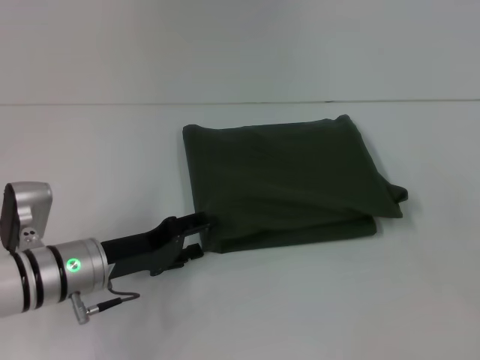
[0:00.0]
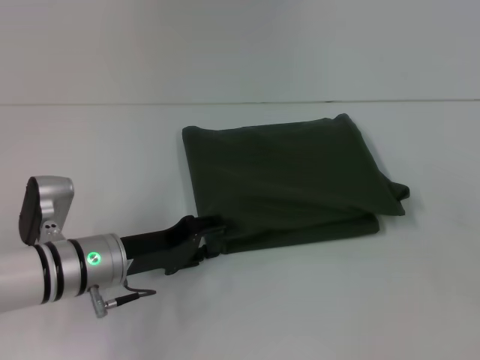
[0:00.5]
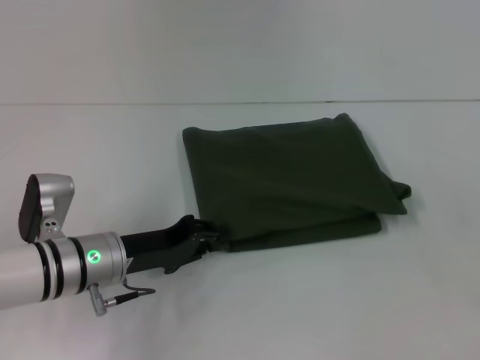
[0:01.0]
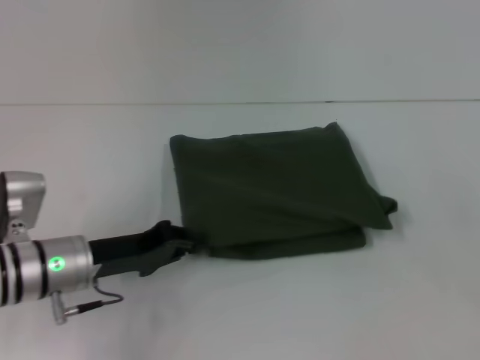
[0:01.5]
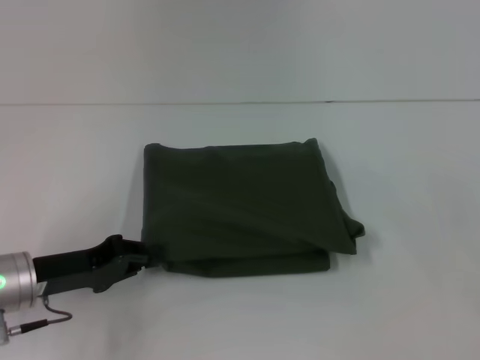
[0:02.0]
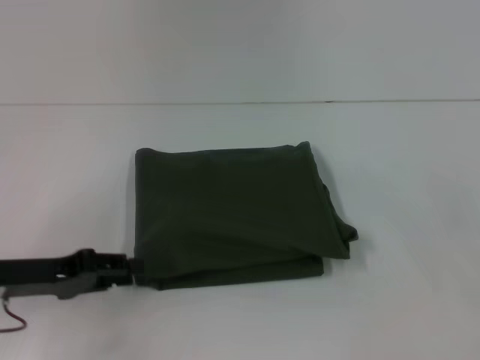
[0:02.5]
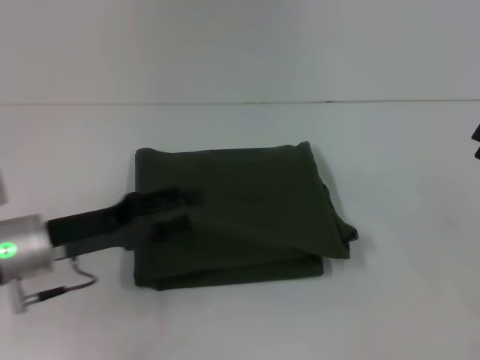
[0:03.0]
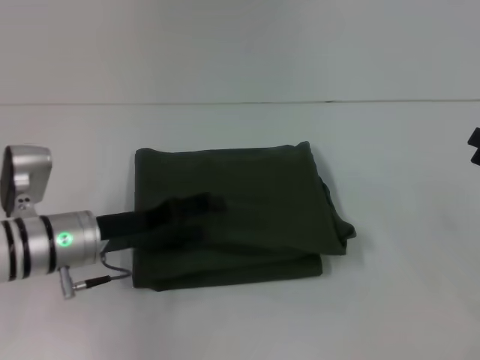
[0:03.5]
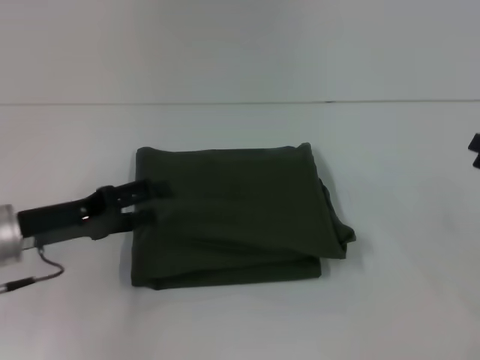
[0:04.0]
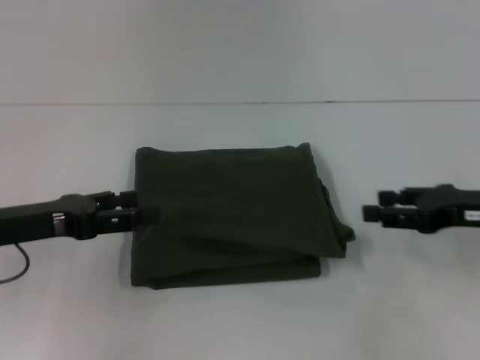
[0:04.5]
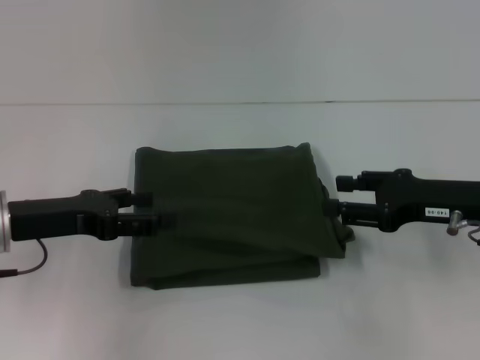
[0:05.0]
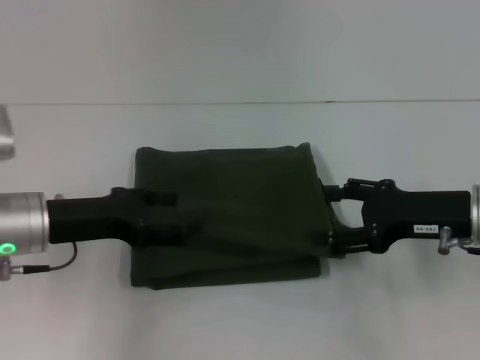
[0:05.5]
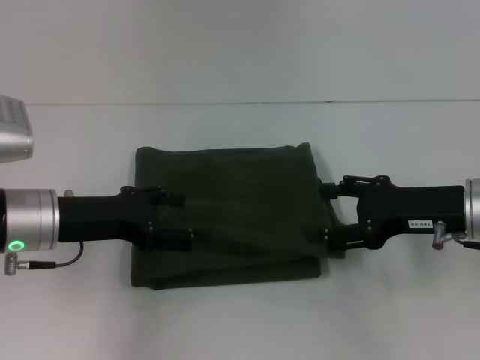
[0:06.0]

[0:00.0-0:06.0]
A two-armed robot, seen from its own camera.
0:00.0 to 0:02.0: The left gripper is displaced to the left by roughly 5 cm, and closes.
0:02.0 to 0:04.0: The left gripper travels to the right and back again, about 5 cm each way, and opens its fingers.
0:04.0 to 0:06.0: The right gripper shifts approximately 15 cm to the left.

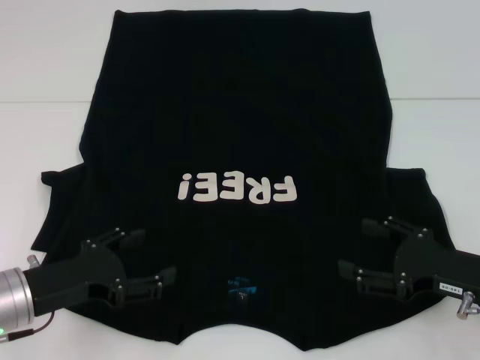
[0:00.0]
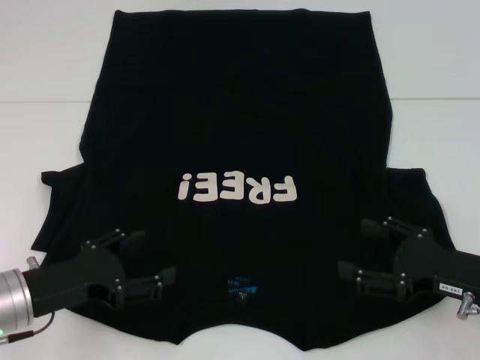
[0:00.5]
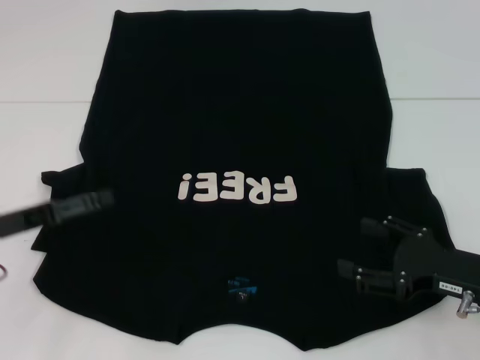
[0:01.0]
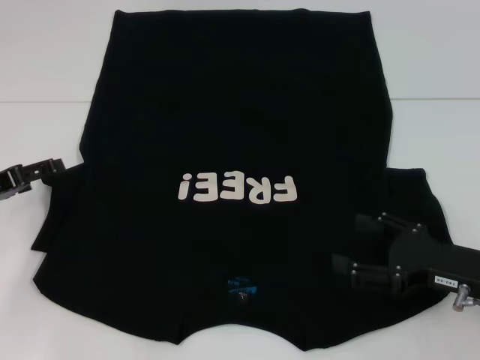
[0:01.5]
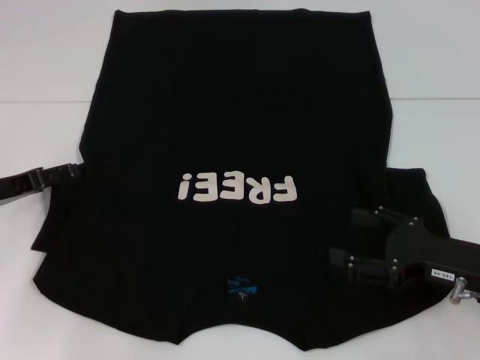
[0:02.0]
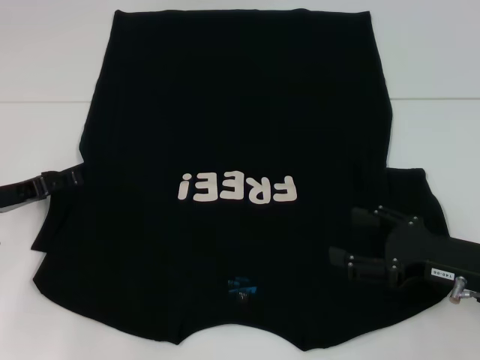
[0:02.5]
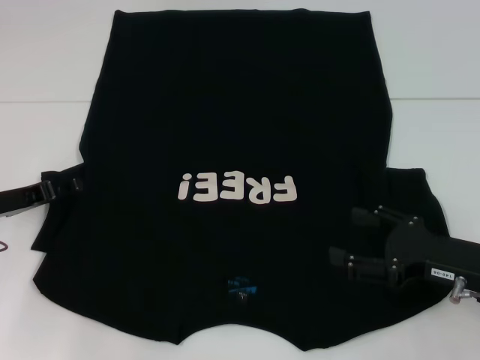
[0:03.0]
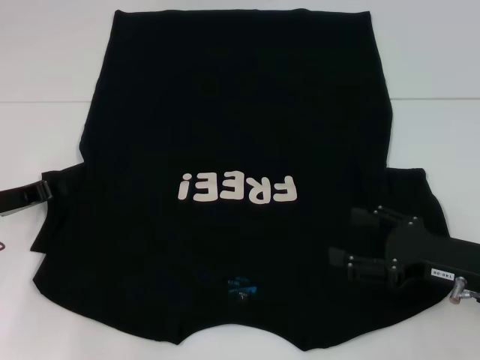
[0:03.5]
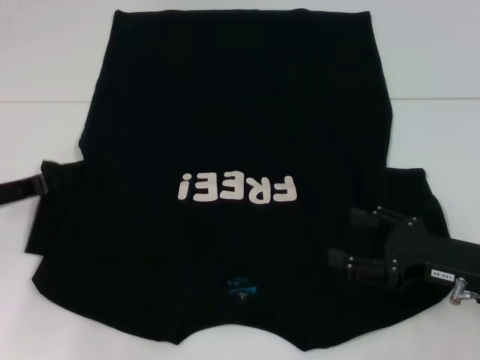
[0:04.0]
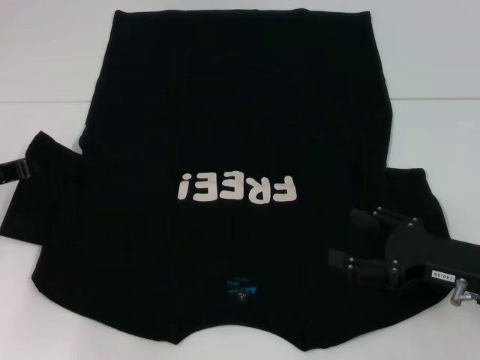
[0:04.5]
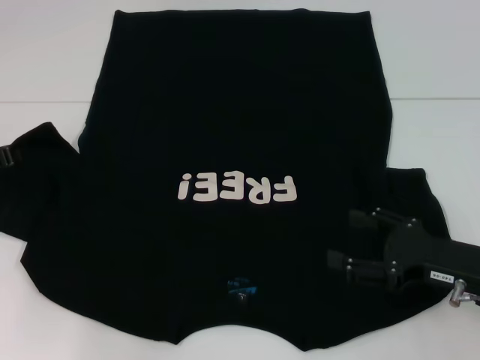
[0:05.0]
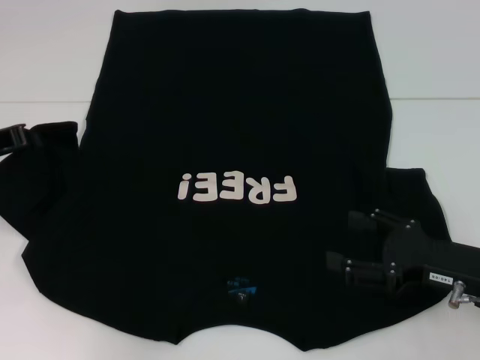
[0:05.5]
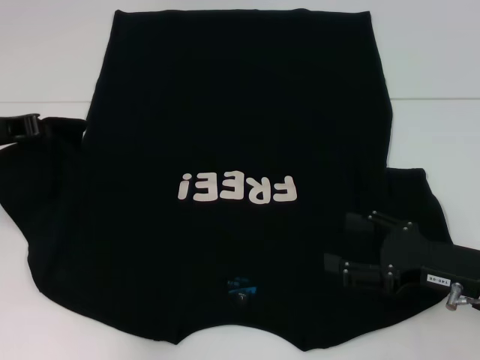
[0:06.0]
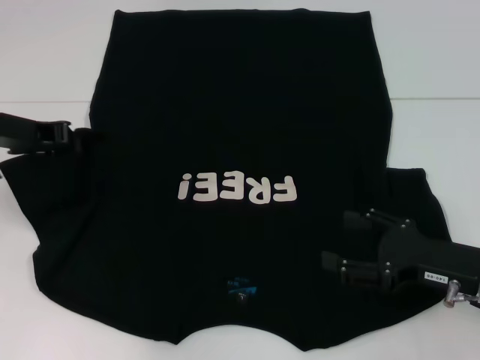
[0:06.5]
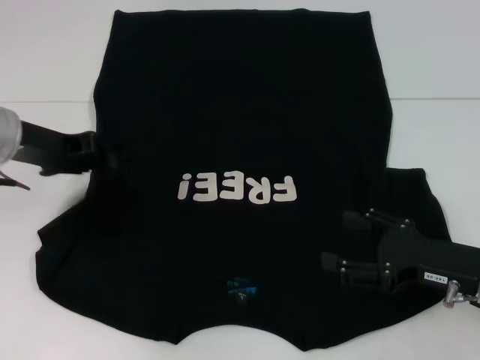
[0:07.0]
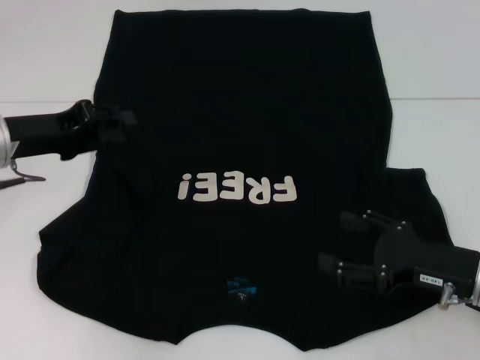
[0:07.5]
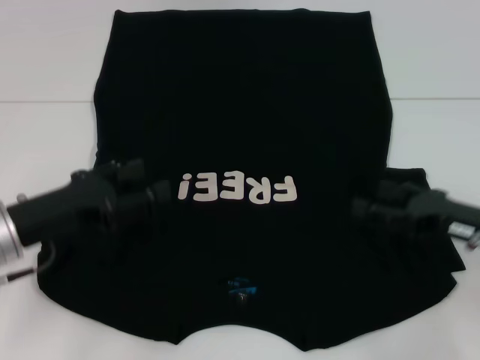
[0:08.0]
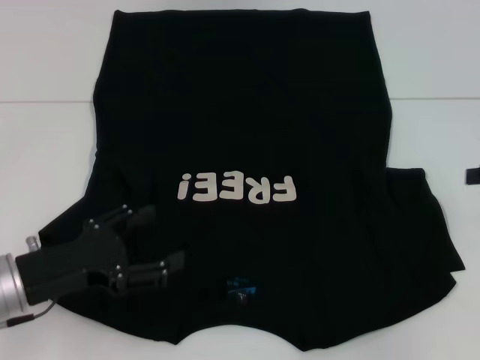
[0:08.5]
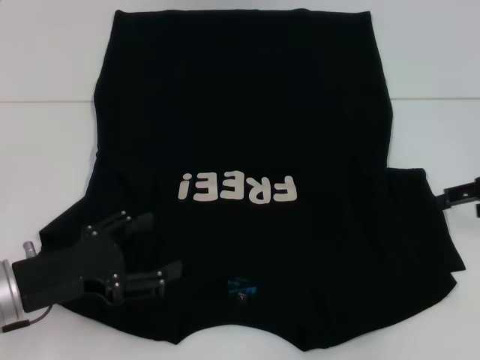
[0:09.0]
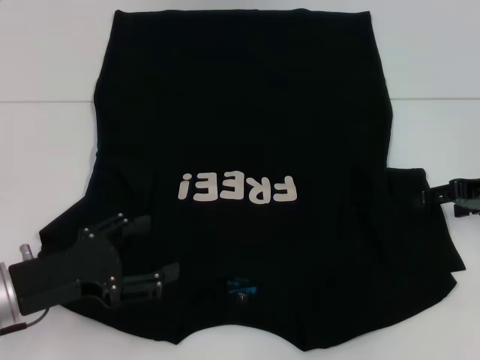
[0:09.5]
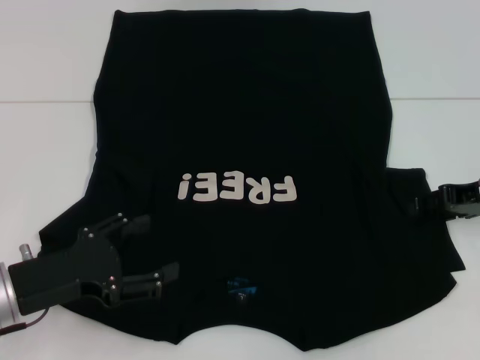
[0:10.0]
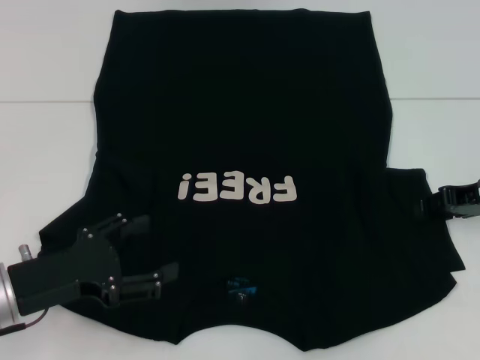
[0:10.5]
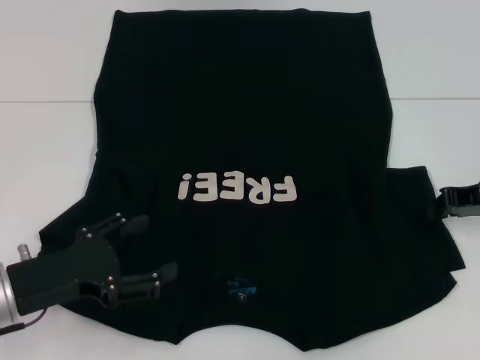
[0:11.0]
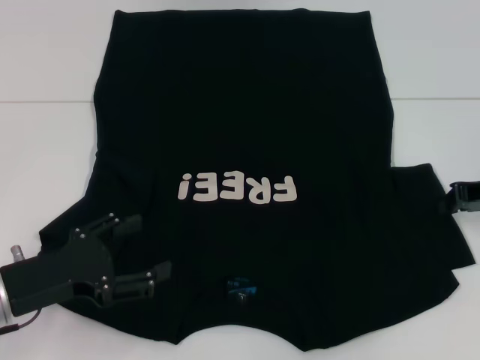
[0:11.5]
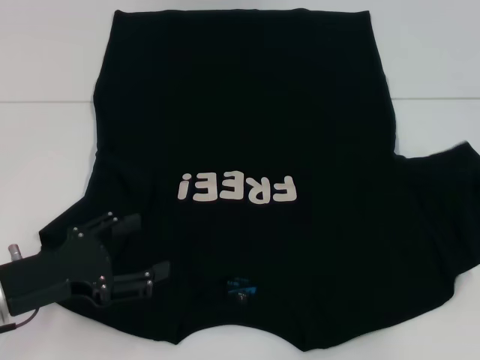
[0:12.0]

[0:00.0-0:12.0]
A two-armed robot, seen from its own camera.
Step, 0:00.0 to 0:07.5: Fold the bottom left sleeve with your left hand.
0:00.0 to 0:02.0: The left gripper moves forward and to the left, about 10 cm.
0:02.0 to 0:04.0: The left gripper closes up.
0:04.0 to 0:06.0: The left gripper shifts approximately 10 cm upward.
0:06.0 to 0:08.0: The left gripper moves backward, downward and to the right, about 10 cm, and opens.
0:08.0 to 0:10.0: The right gripper is displaced forward by roughly 10 cm; the left gripper ends up some 5 cm from where it was, and opens up.
0:10.0 to 0:12.0: The right gripper travels to the right by about 5 cm, and closes its fingers.

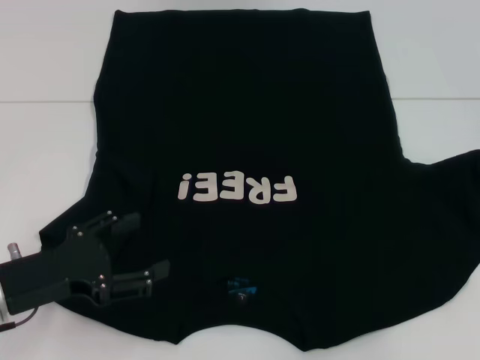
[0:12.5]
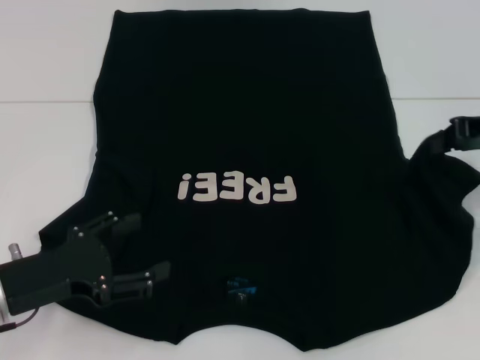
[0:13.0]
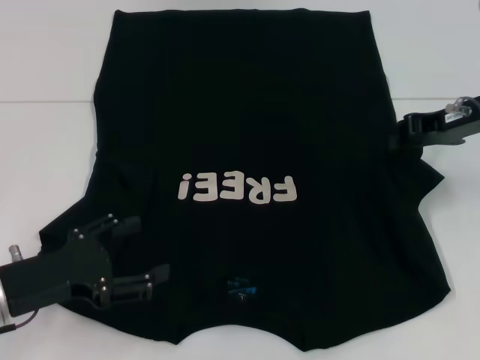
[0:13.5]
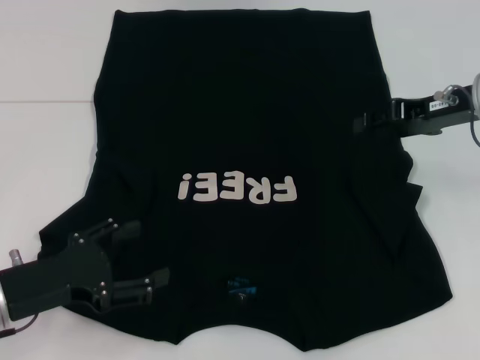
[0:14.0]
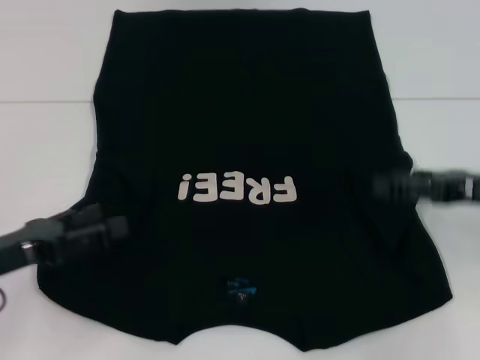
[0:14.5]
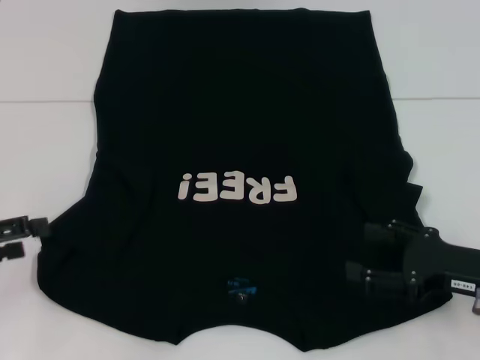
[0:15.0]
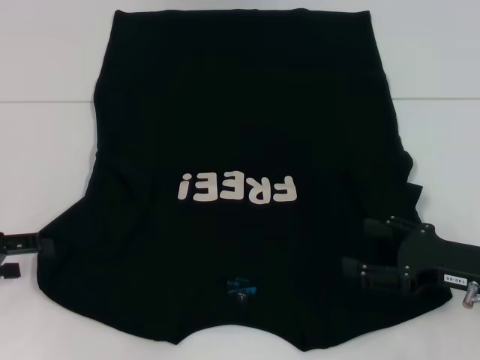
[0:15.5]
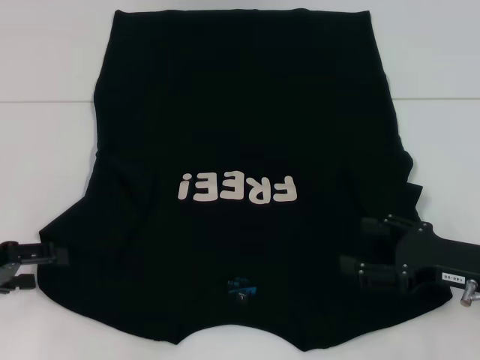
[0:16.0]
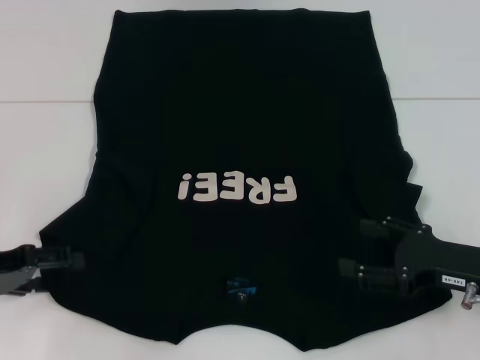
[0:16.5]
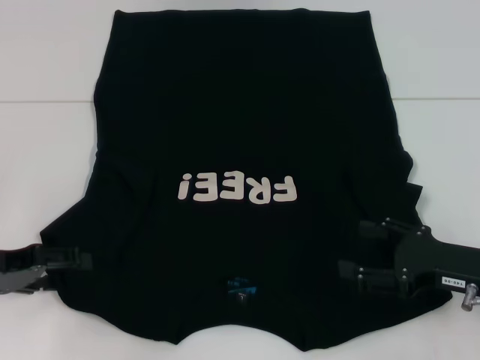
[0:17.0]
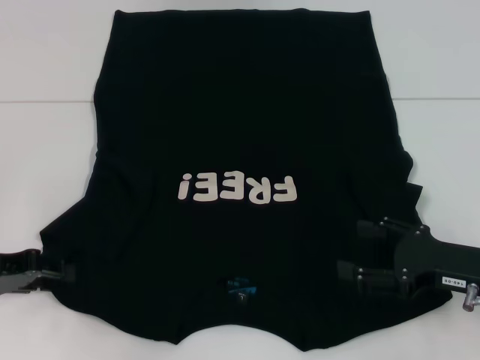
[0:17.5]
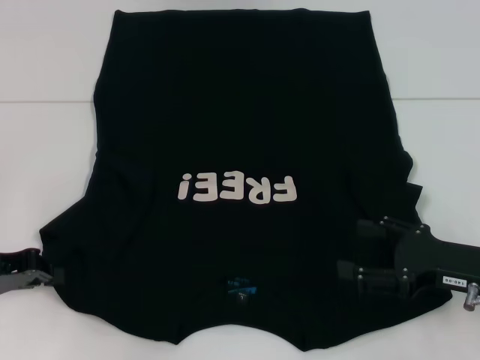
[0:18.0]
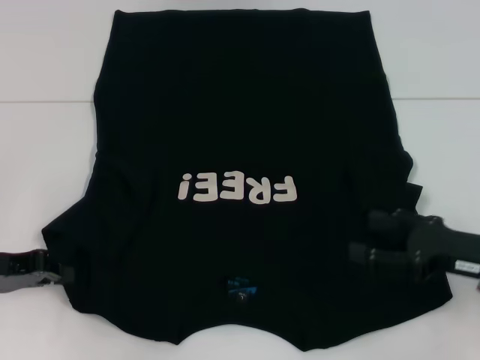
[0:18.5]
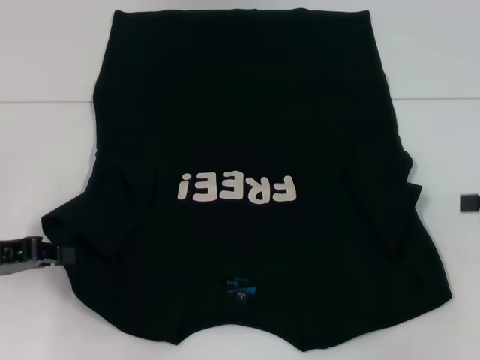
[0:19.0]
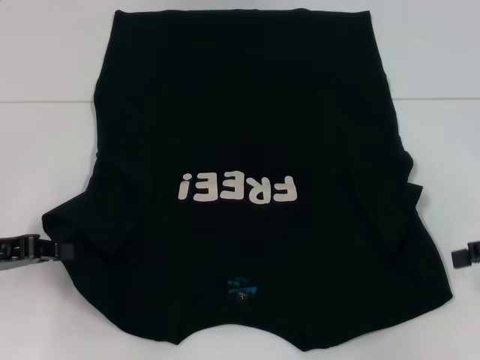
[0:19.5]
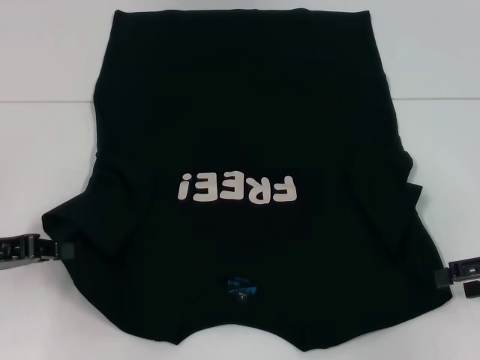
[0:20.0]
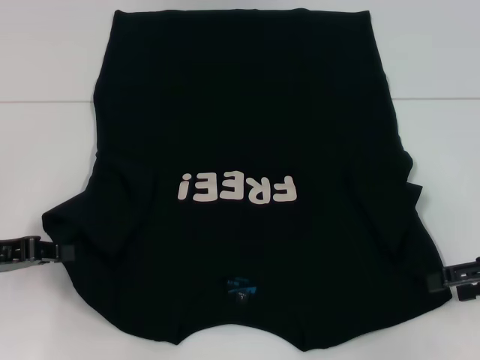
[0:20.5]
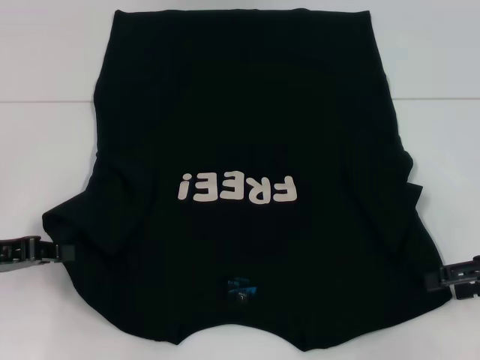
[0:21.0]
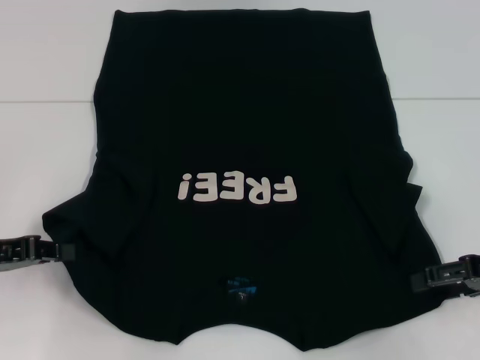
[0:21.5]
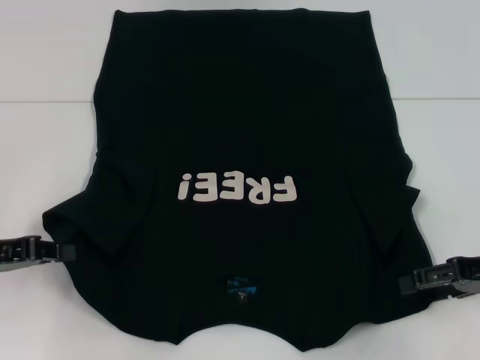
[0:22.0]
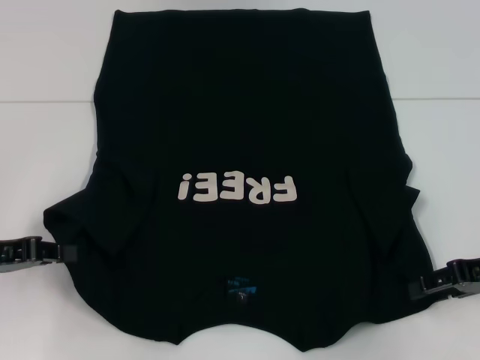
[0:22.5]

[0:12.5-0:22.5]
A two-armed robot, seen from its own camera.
Step, 0:14.0 to 0:18.0: Grab the bottom left corner with your left hand.
0:12.5 to 0:14.5: The right gripper heads backward, covering approximately 5 cm, and opens its fingers.
0:14.5 to 0:16.5: The right gripper moves downward and backward, about 10 cm; the left gripper moves about 5 cm.
0:16.5 to 0:18.5: The left gripper closes.
0:18.5 to 0:20.5: The right gripper travels to the right by some 5 cm.
0:20.5 to 0:22.5: The grippers make only small movements.
